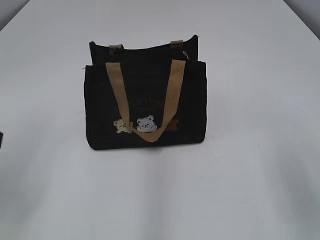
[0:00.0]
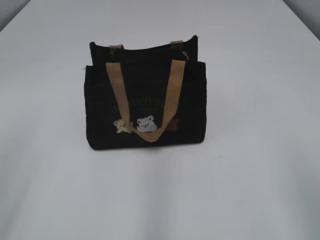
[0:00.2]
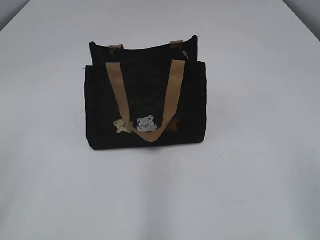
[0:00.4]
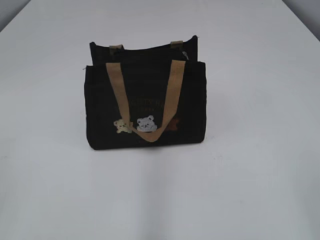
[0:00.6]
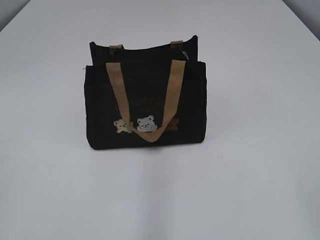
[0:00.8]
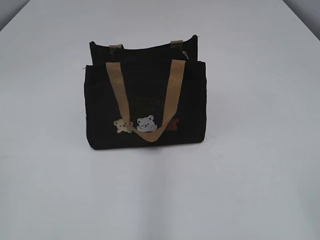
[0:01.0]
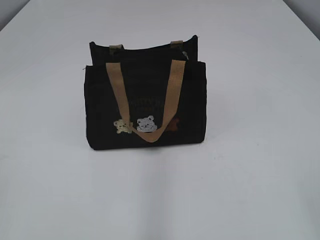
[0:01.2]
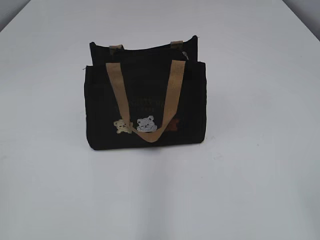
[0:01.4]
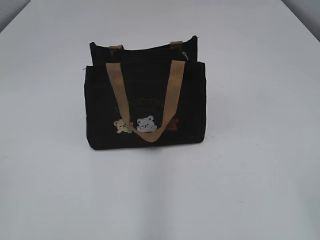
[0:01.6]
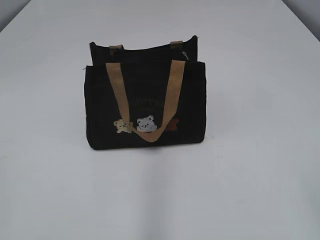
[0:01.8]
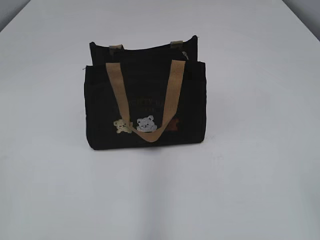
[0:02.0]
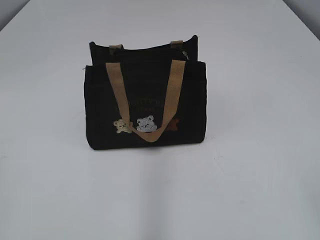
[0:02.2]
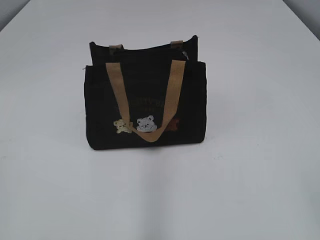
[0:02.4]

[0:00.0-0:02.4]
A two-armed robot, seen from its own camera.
0:00.0 to 0:01.2: The grippers both shift backward by about 15 cm.
